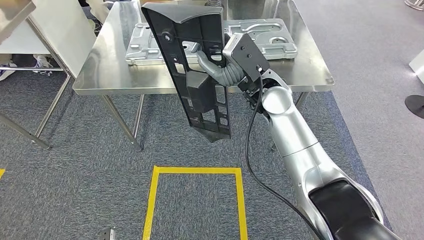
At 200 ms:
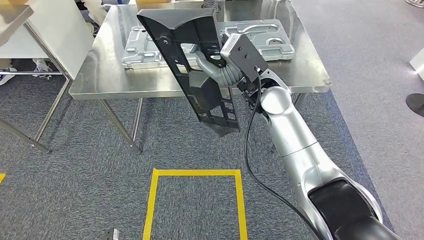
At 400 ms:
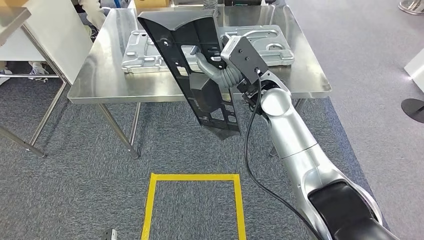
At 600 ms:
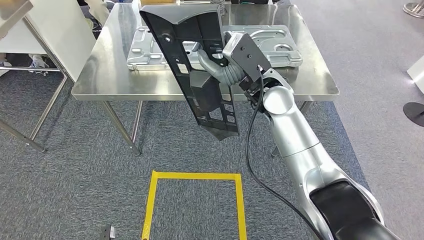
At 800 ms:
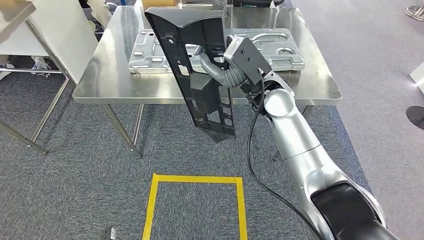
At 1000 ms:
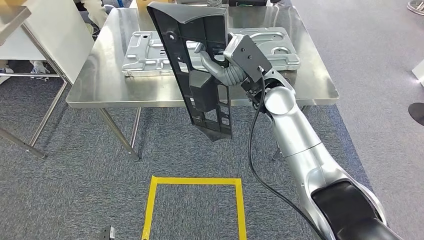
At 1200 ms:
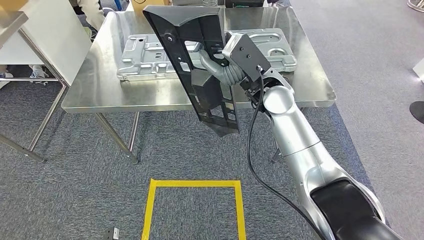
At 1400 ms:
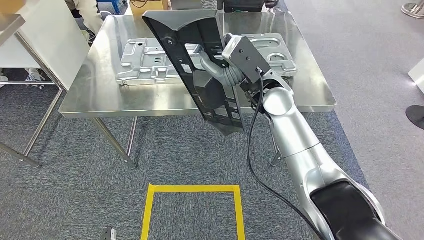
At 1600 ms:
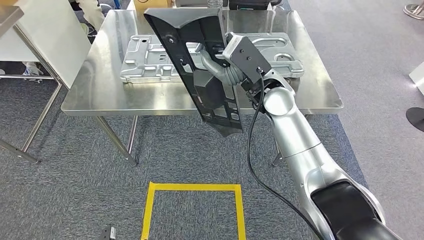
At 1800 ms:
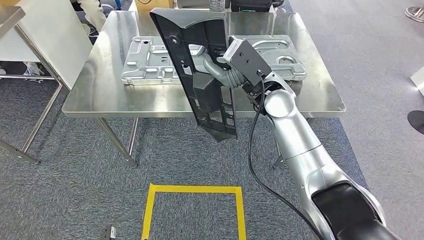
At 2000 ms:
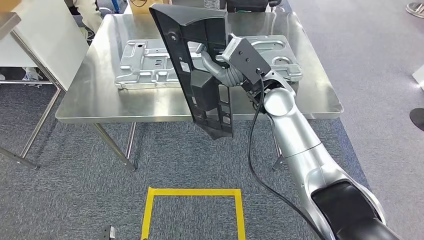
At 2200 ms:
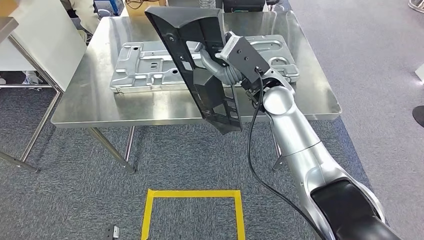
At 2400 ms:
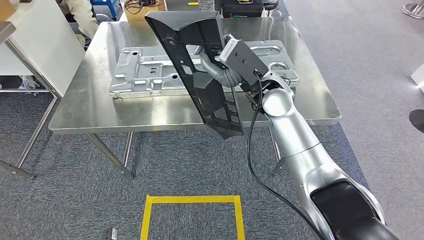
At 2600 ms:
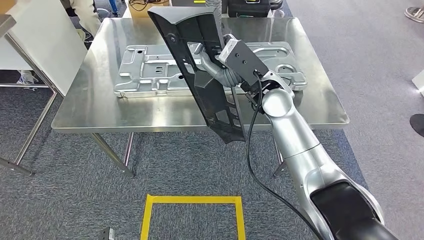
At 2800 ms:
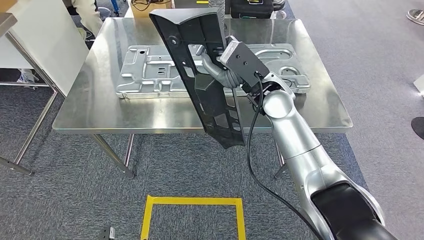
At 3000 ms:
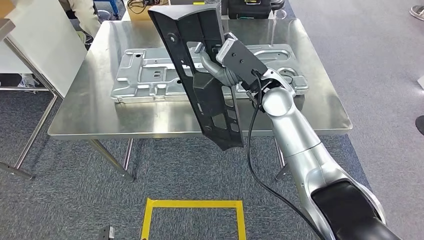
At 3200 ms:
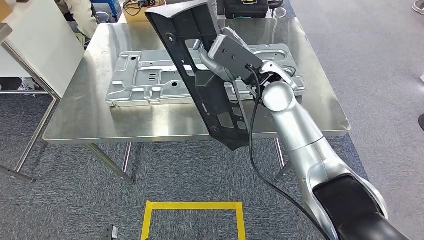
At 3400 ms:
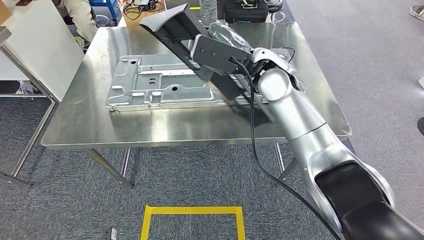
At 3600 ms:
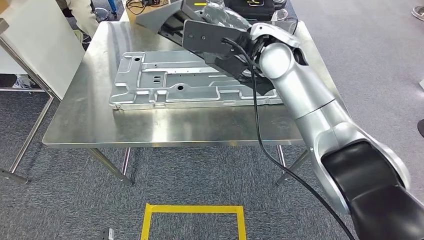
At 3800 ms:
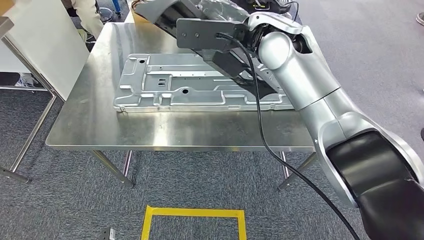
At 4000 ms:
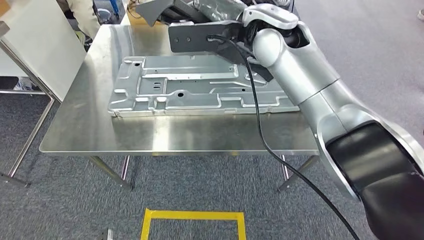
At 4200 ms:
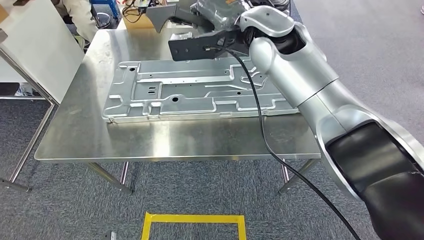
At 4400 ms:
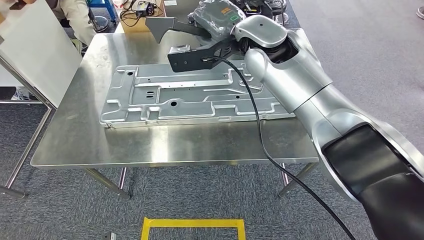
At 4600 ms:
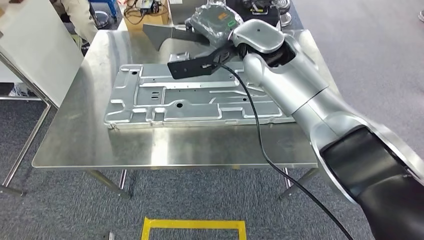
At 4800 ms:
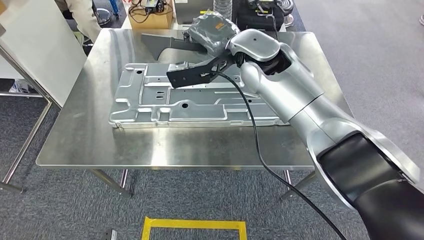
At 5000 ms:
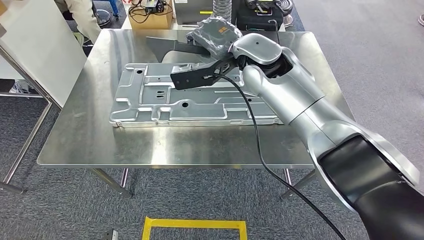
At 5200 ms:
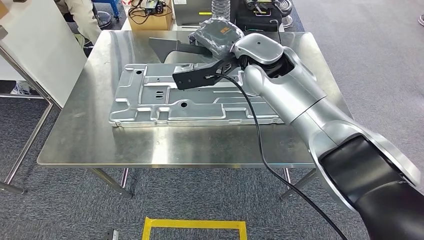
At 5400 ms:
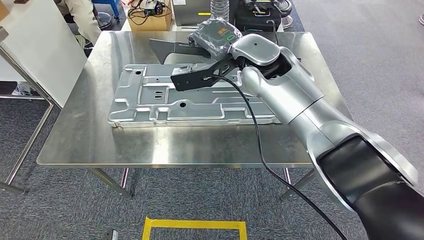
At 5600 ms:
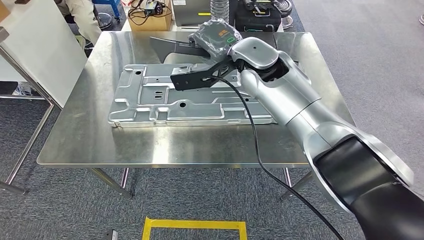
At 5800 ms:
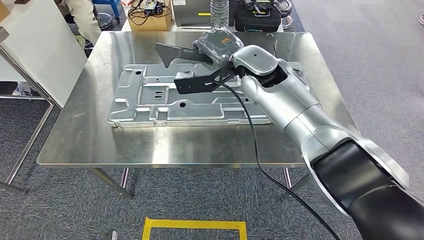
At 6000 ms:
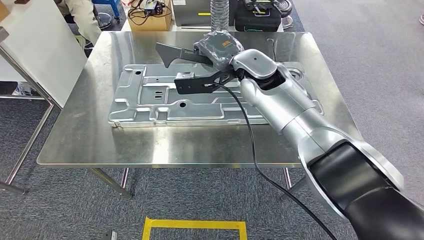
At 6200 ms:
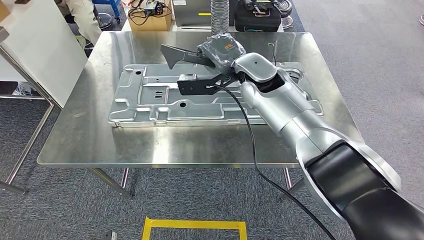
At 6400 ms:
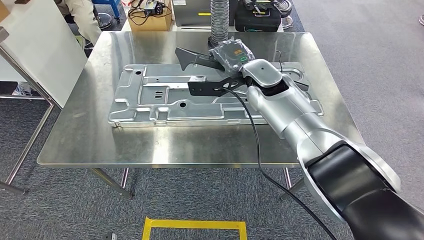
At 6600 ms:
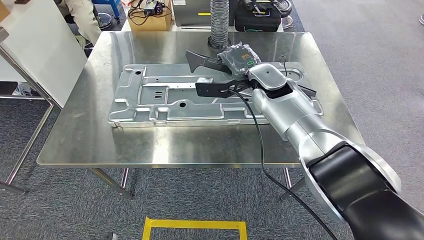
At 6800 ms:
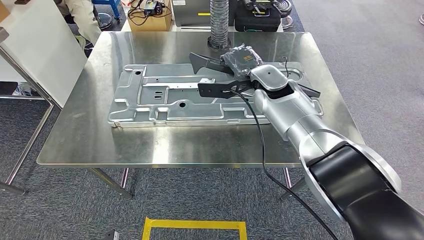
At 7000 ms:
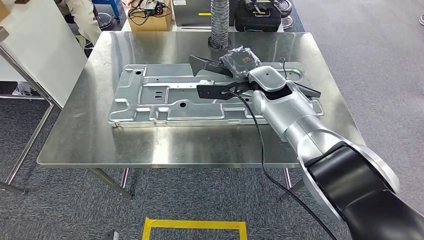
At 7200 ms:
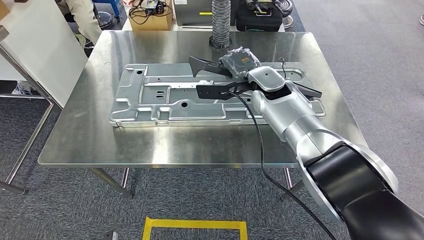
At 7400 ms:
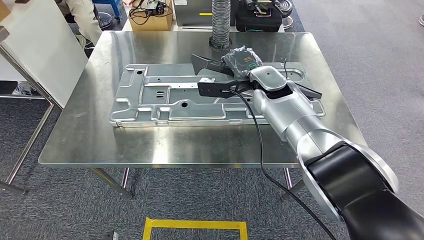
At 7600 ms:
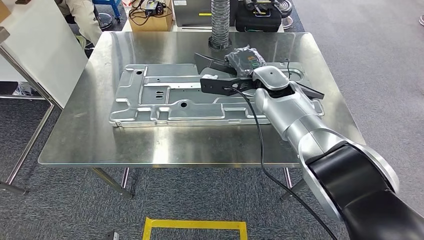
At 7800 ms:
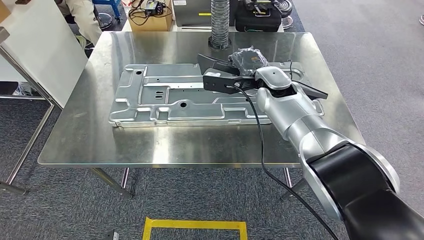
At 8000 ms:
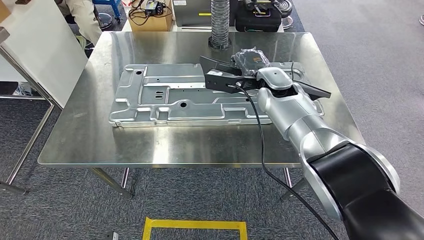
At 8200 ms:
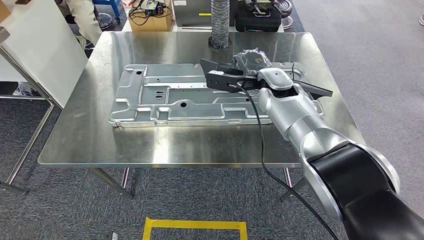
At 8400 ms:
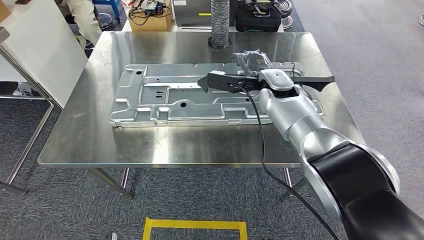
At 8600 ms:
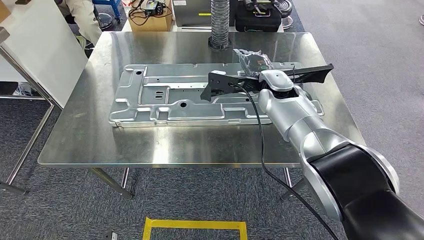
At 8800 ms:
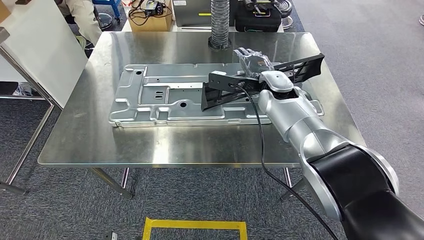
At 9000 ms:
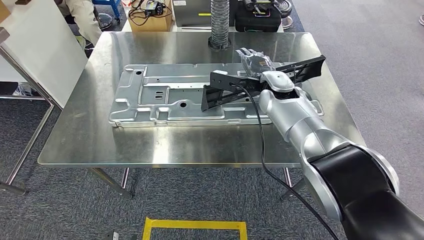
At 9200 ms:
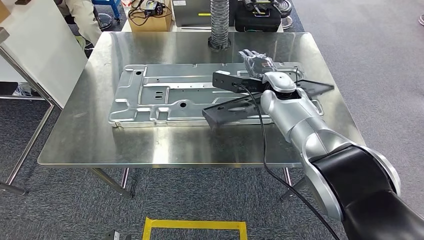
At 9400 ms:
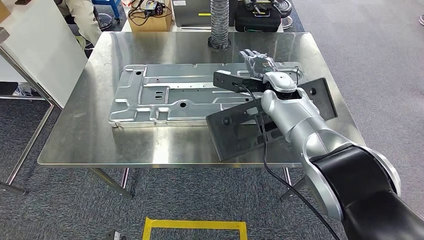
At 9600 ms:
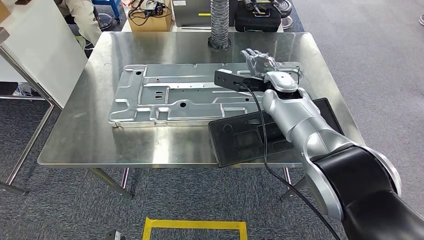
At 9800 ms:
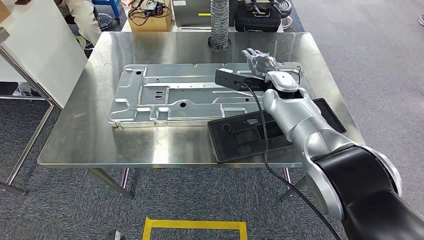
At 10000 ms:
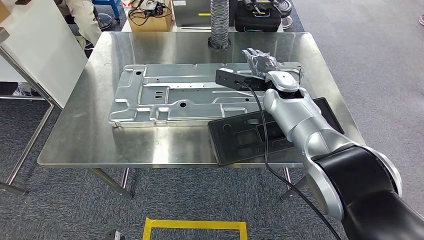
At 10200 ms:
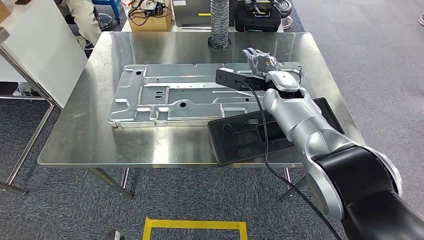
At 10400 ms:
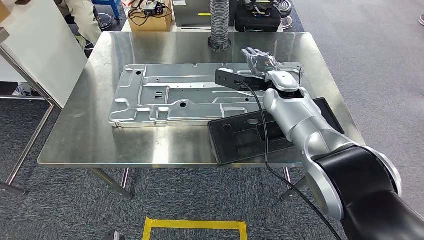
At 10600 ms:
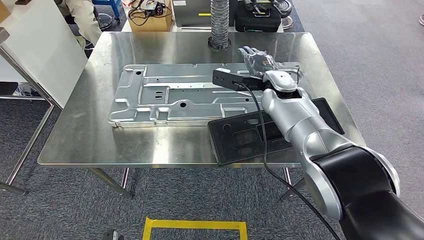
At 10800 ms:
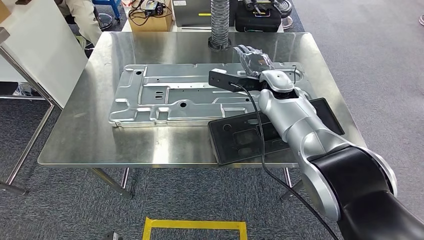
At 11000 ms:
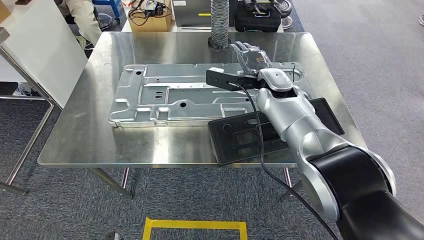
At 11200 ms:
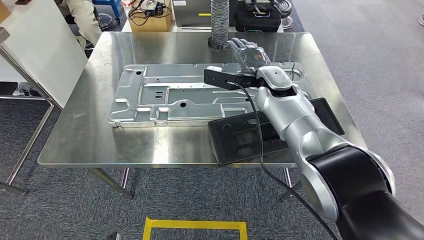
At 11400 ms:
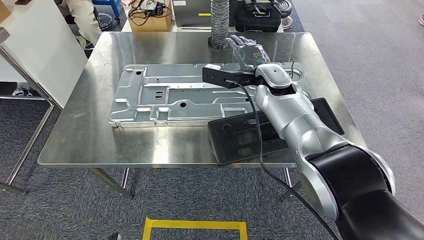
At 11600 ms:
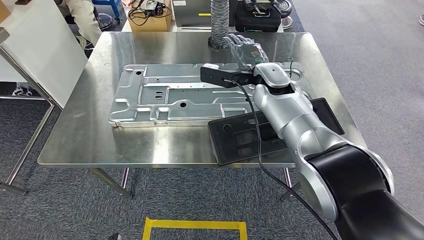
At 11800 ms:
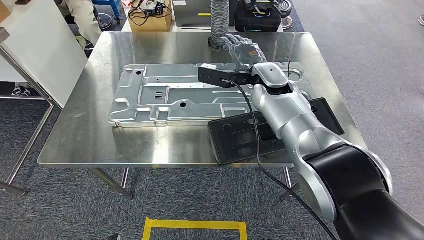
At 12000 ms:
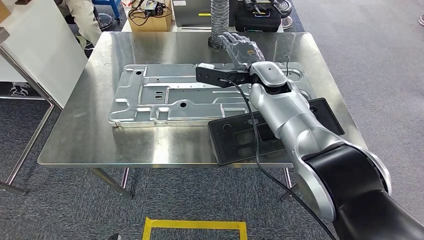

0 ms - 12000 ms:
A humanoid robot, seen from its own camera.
Step, 0 ms - 3800 ms: Move the small parts to the workbench.
6000 ms - 7600 ms: The right hand is displaced downward by about 5 cm.
7600 ms - 9000 ms: There are only small adjustments of the hands.
9000 ms - 10400 ms: Both hands stay put.
10400 ms - 12000 ms: The hands move only a little.

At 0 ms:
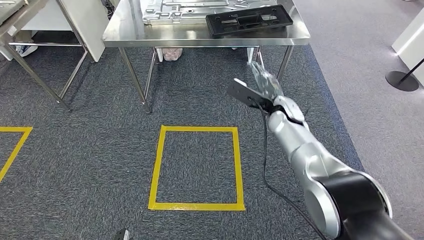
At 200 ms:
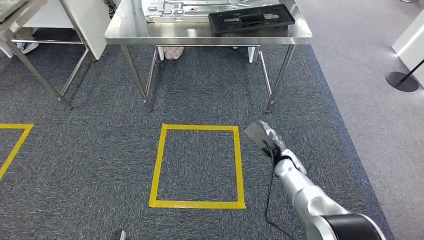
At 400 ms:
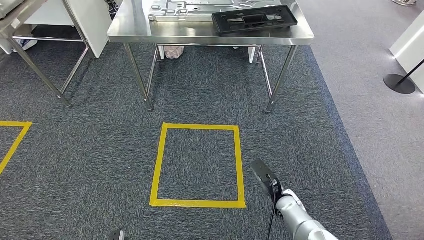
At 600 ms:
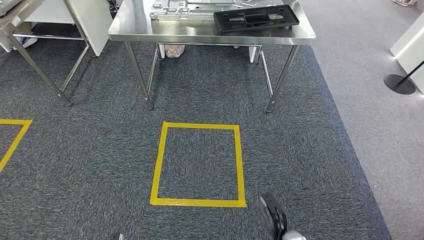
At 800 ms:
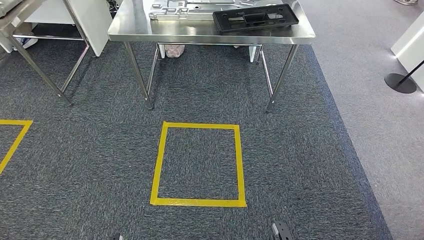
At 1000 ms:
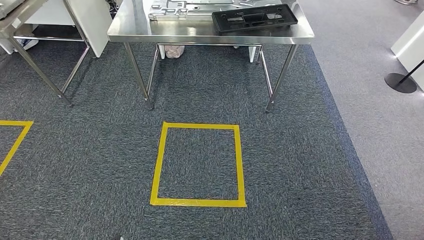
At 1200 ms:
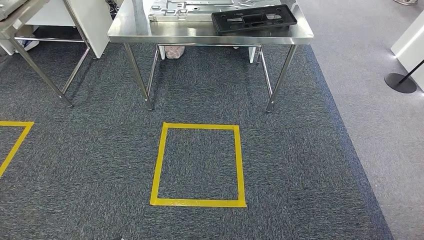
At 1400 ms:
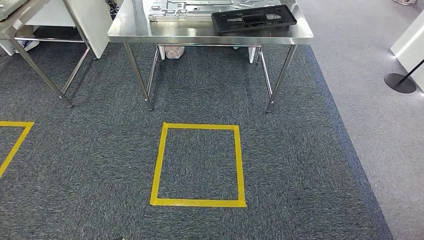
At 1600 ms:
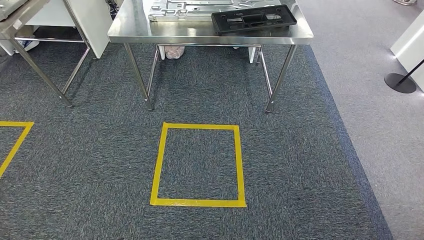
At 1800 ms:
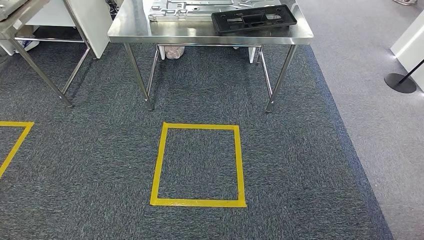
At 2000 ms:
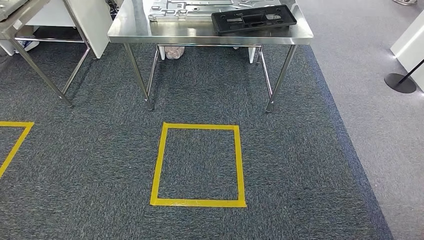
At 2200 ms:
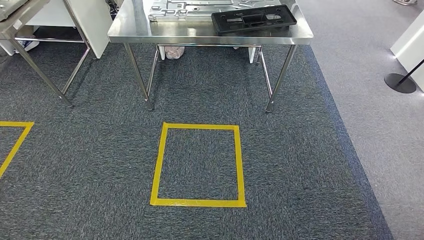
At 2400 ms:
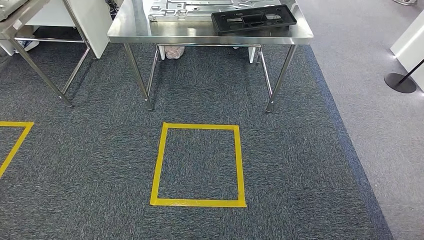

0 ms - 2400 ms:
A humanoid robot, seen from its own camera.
Step, 0 ms - 2400 ms: Move to the initial position of the workbench.
0 ms - 1200 ms: The right hand shifts approximately 50 cm backward and downward.

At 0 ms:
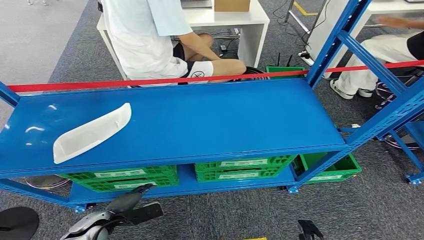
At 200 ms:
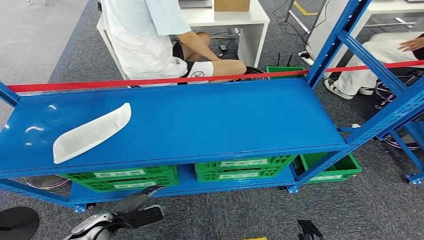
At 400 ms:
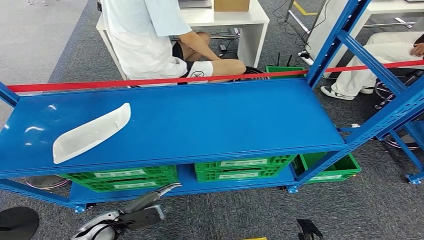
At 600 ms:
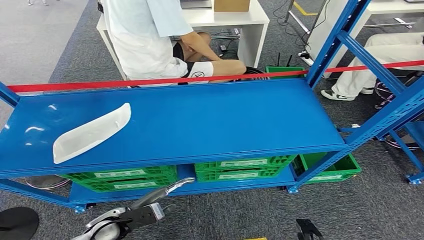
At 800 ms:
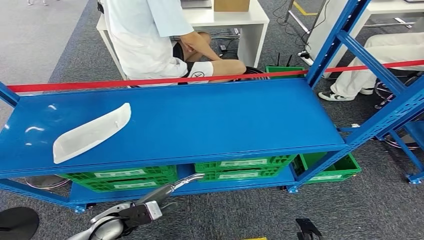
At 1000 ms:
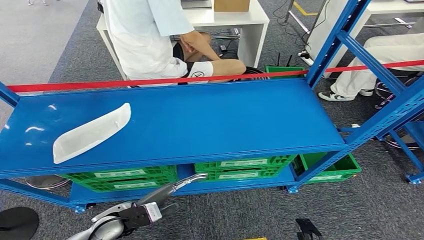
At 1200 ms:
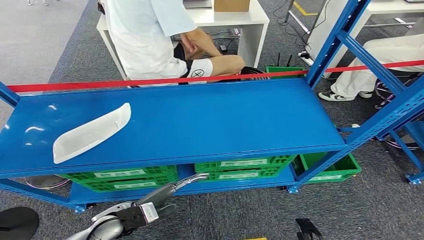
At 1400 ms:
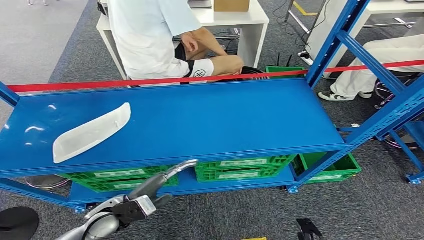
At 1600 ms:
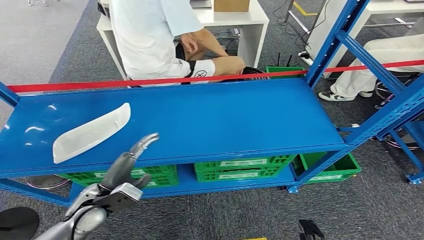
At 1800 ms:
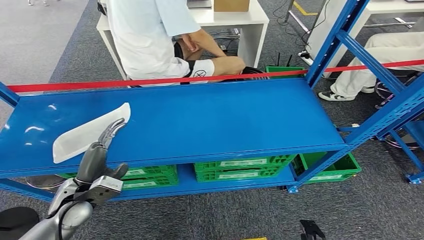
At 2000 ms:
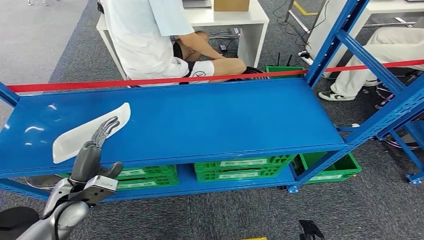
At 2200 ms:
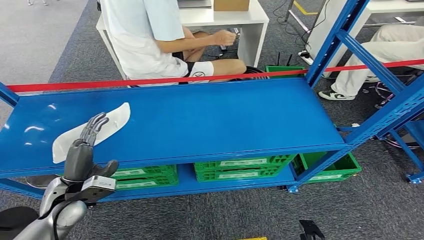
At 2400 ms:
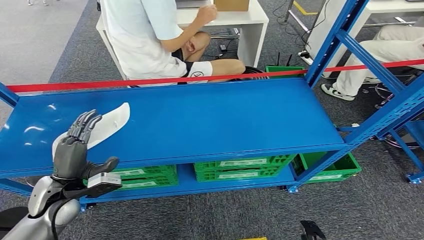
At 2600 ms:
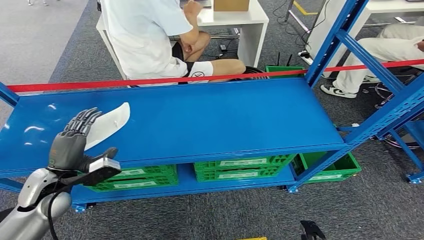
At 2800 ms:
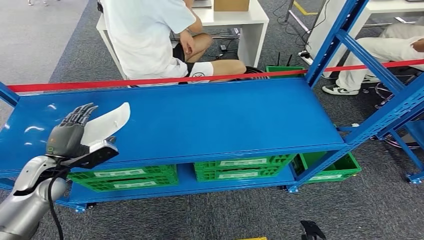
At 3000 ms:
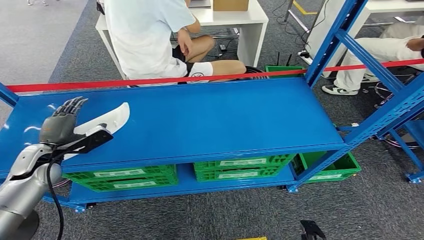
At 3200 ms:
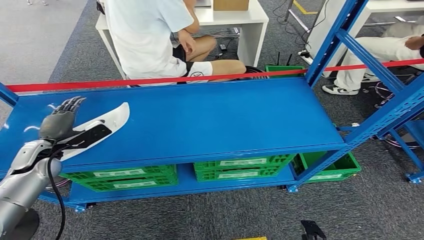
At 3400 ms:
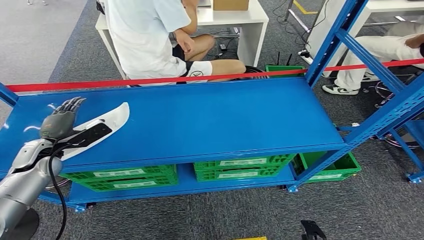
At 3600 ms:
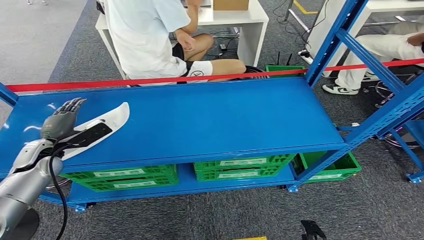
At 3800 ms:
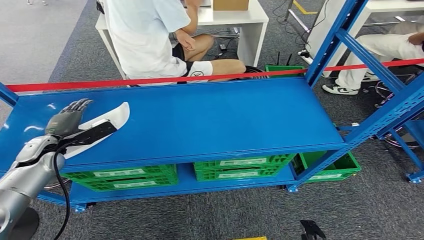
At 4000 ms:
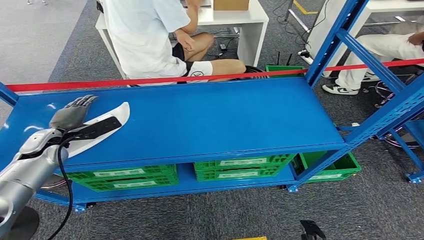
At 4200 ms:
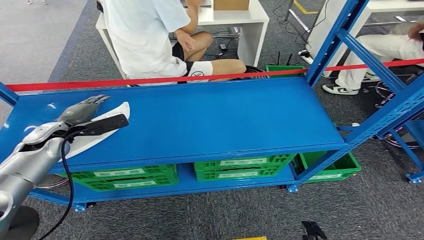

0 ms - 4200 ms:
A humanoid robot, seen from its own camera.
0 ms - 1400 ms: The left hand travels upward and to the right by some 10 cm.
1400 ms - 2800 ms: The left hand travels to the left, forward and upward by some 20 cm.
2800 ms - 4200 ms: The left hand goes some 10 cm forward.
